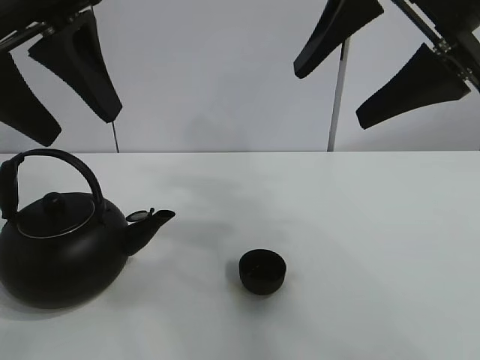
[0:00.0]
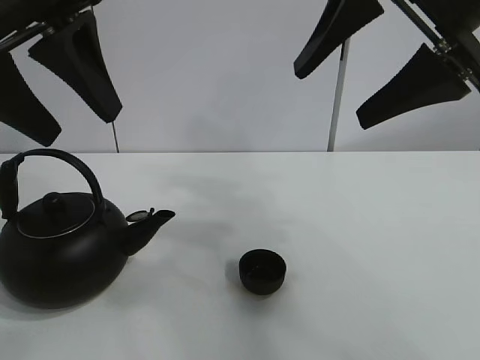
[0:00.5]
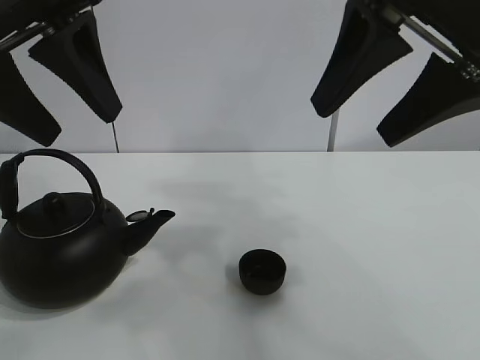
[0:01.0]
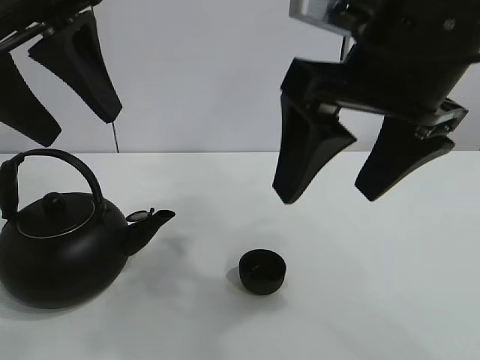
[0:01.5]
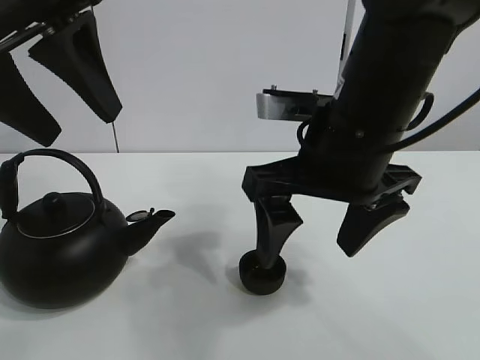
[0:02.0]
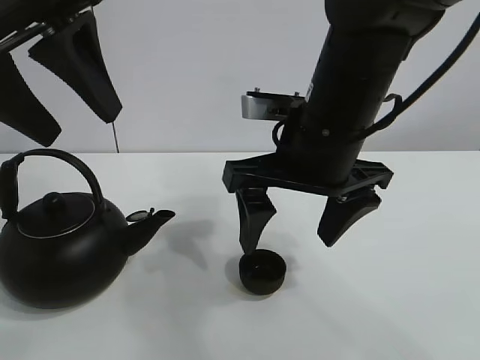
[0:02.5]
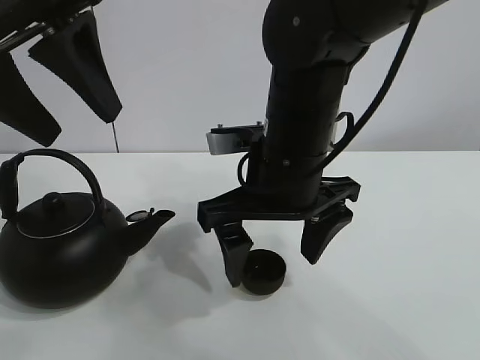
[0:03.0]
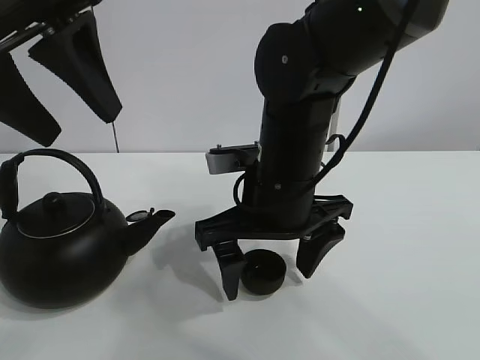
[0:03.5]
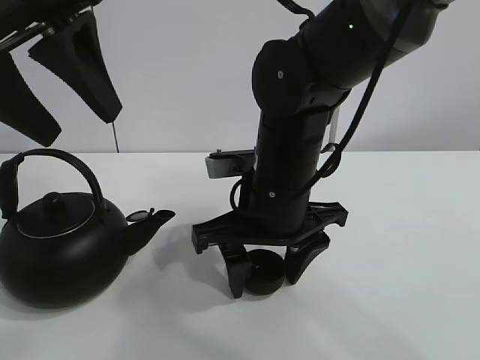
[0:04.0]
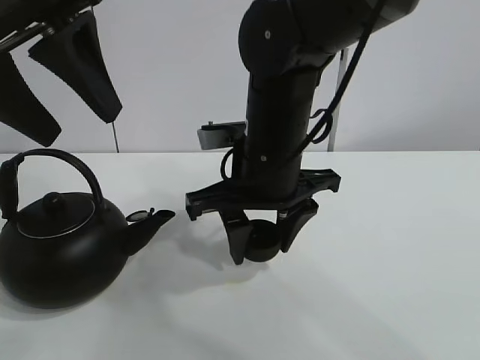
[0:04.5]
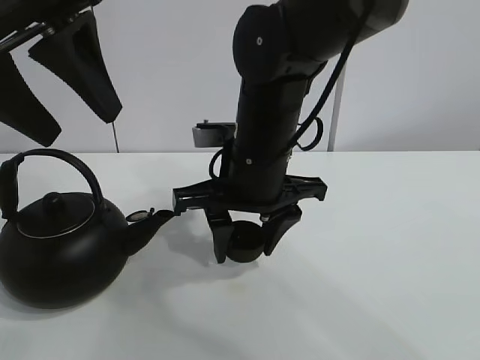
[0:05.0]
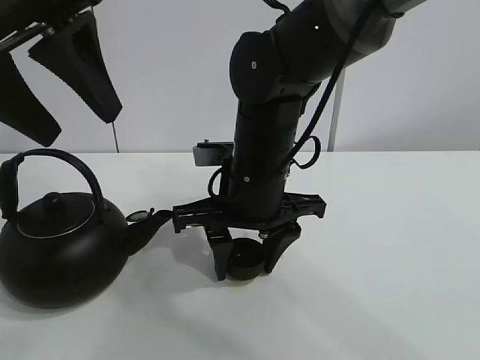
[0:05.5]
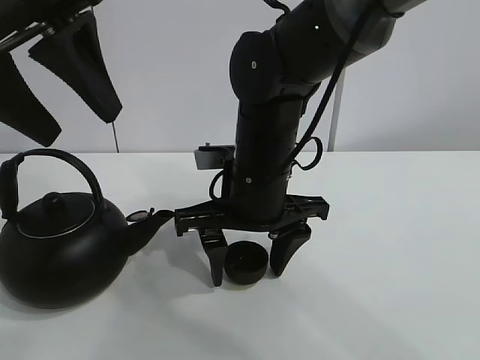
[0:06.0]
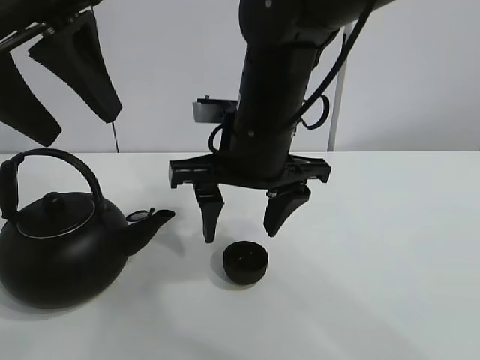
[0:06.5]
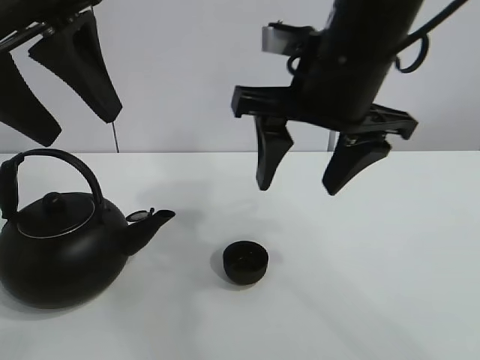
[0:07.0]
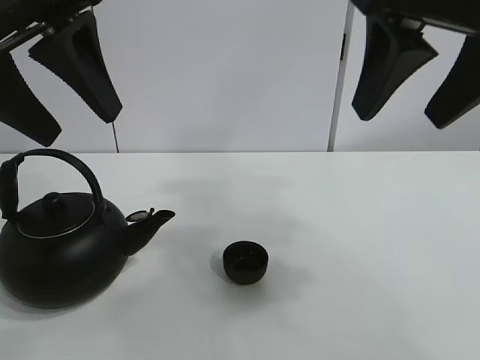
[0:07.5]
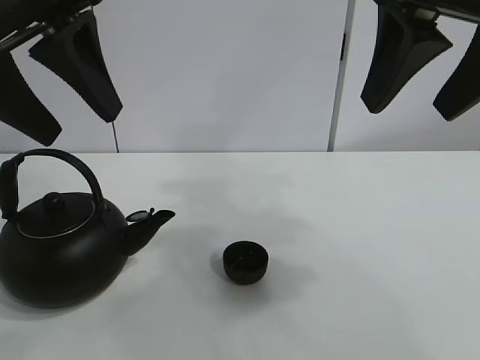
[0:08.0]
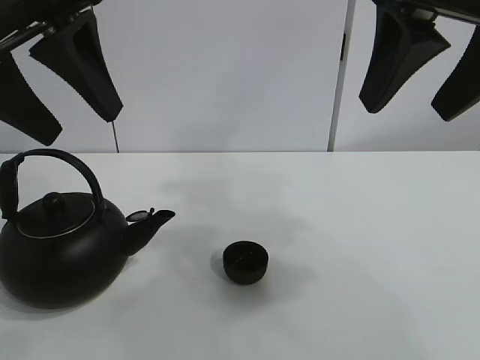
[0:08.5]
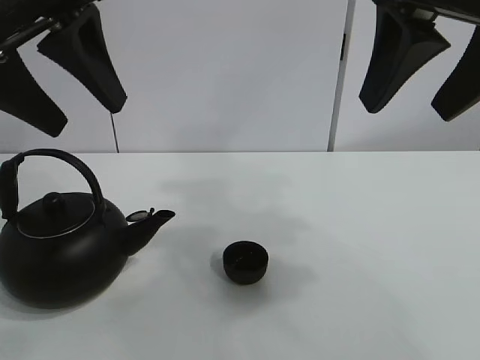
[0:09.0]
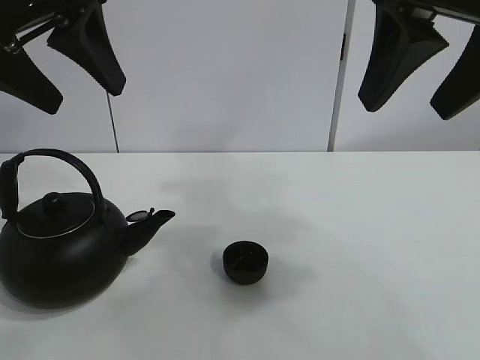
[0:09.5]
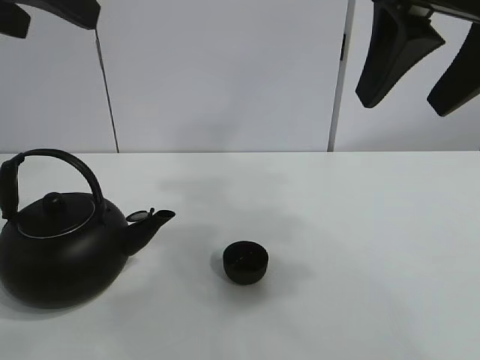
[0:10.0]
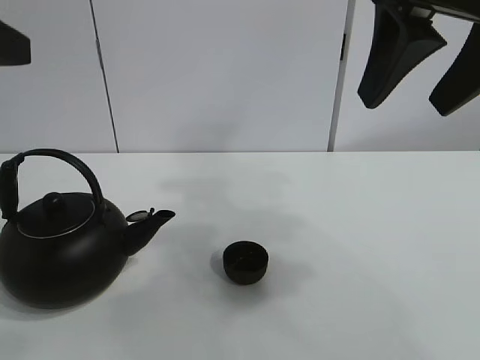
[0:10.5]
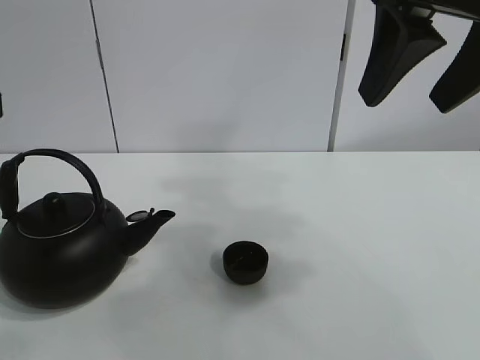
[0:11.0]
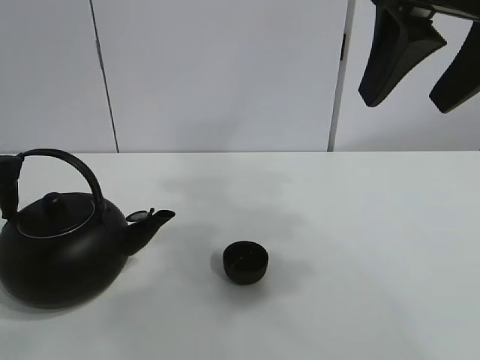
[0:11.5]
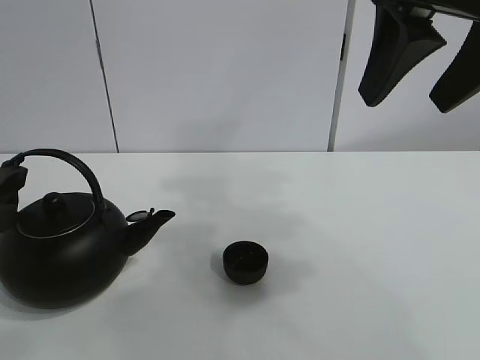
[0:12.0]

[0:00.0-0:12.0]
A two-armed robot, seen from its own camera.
Task of the whole recording: pour tea into the teacup.
Step, 0:00.0 to 0:04.0: Pick up the teacup with the right gripper.
Step, 0:04.5 to 0:06.0: Place the teacup in the center of view with the right gripper.
0:02.0 to 0:04.0: The right gripper goes approximately 10 cm downward and to the left, and closes.
0:04.0 to 0:06.0: The right gripper closes, then reopens.
0:06.0 to 0:08.0: The right gripper heads upward, to the right and backward, covering roughly 25 cm.
0:10.0 to 0:12.0: The left gripper goes some 20 cm downward.

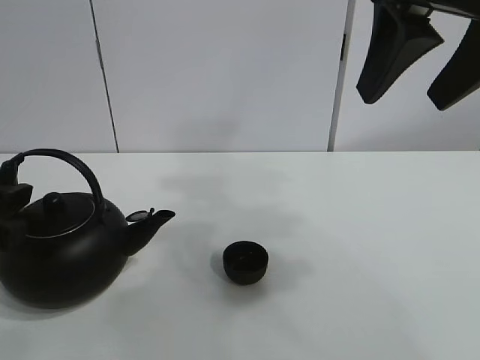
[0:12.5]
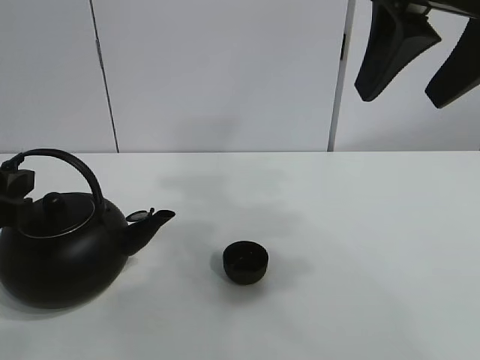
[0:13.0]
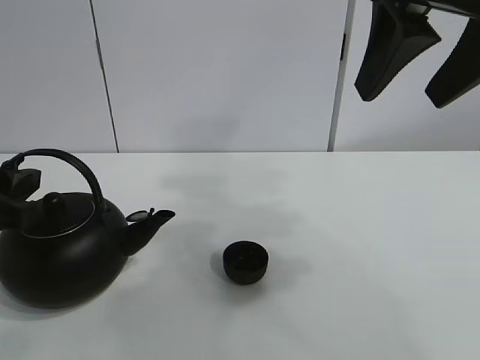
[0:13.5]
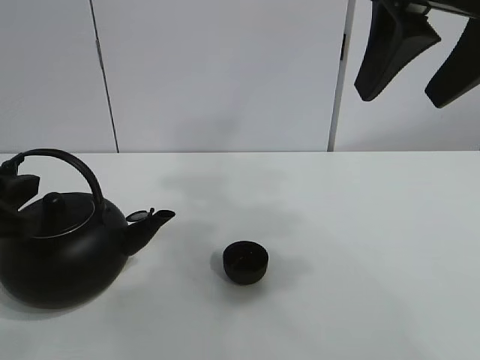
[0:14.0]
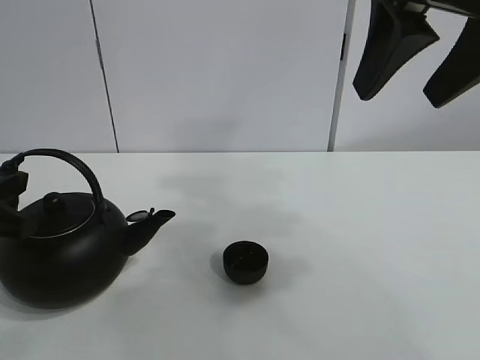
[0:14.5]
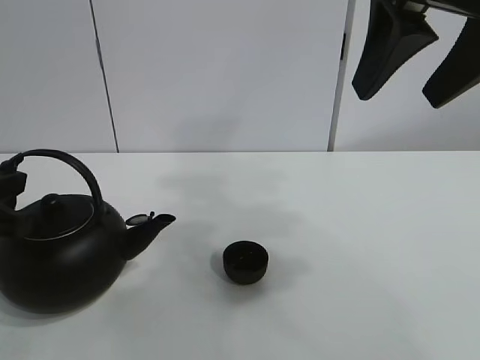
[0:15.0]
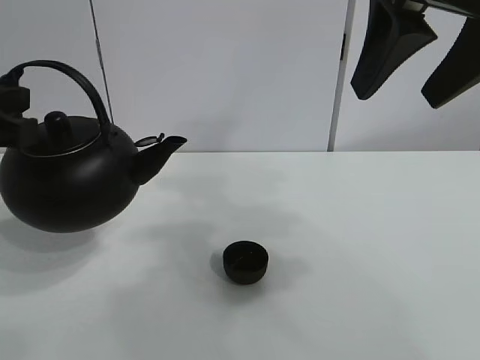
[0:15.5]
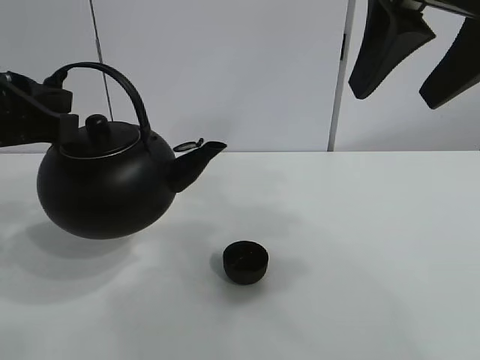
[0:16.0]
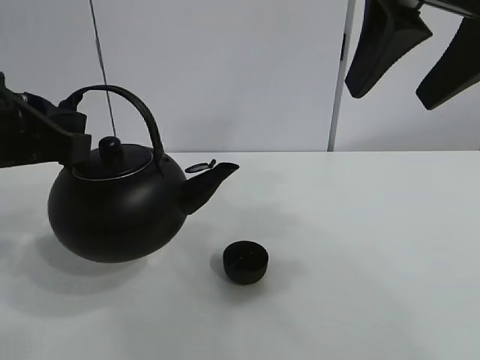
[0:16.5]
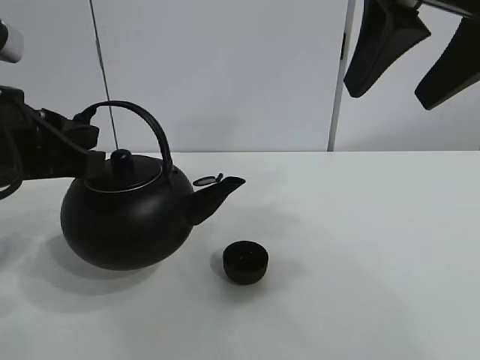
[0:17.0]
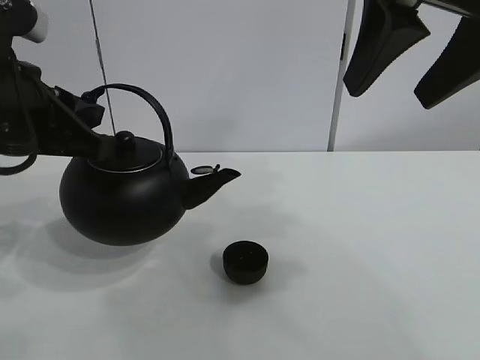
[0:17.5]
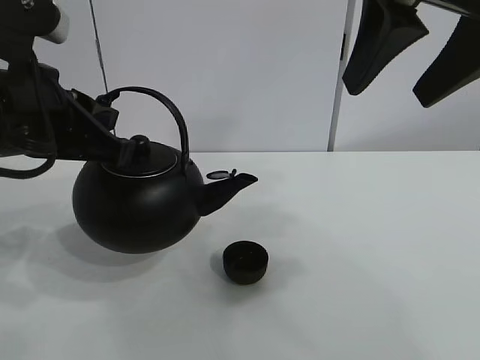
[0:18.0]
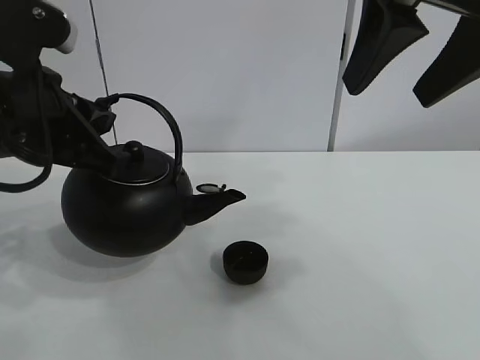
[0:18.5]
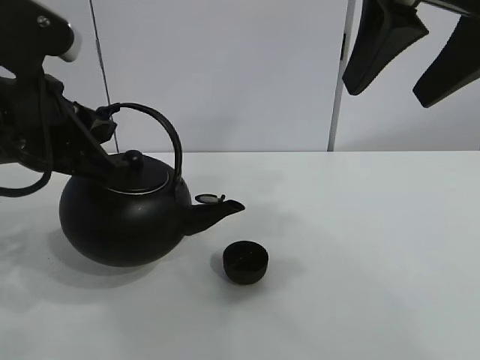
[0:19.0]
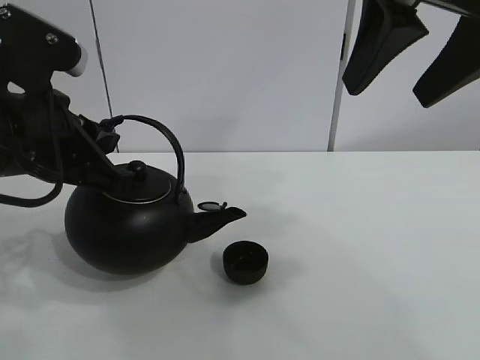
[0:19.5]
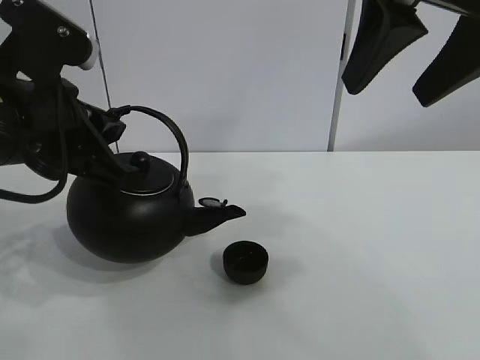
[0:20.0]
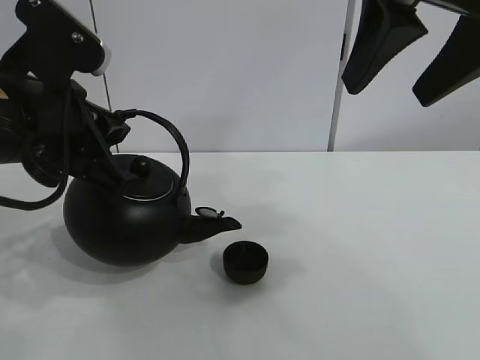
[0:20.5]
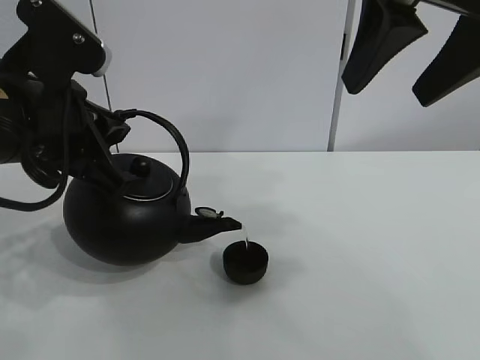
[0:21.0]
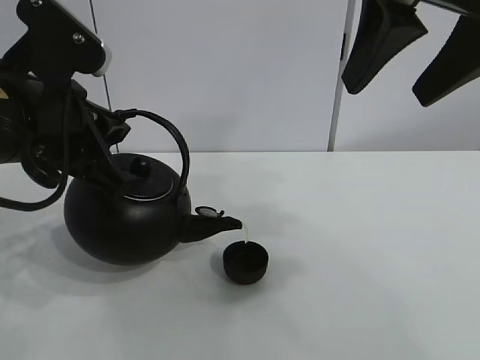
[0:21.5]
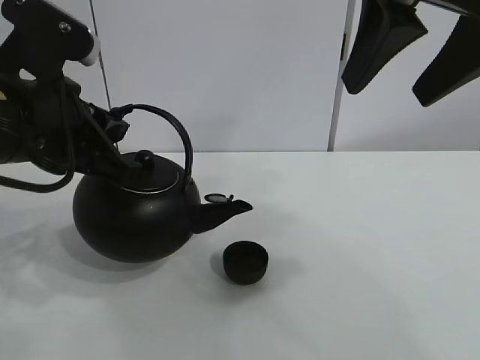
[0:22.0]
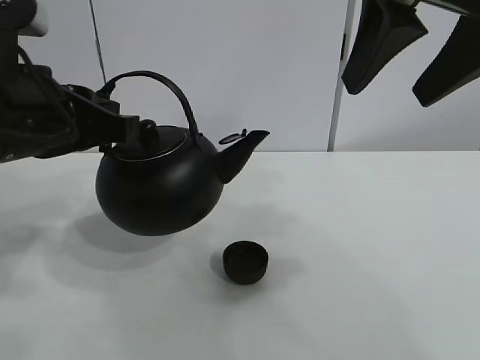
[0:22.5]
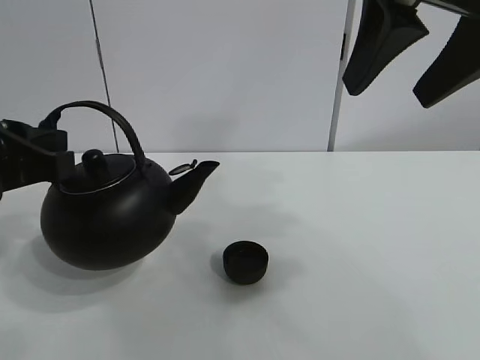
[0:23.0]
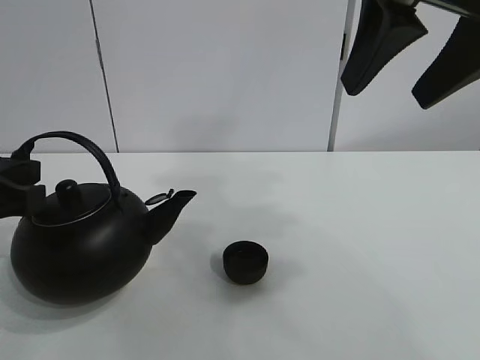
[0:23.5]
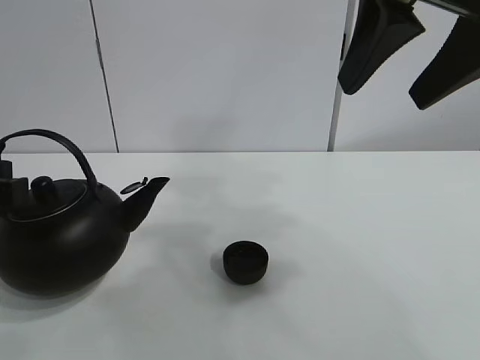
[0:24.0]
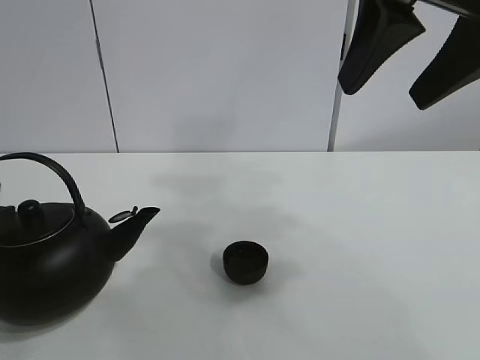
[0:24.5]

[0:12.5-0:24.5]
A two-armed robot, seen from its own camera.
Task of the whole recording: pour tea into the teacup.
Step, 0:12.5 to 0:14.5: Pick up the teapot with the left gripper.
Step, 0:15.0 to 0:21.5: Pour tea into the teacup with the left gripper.
0:14.5 to 0:16.5: The left gripper is displaced upward by roughly 5 cm.
0:16.5 to 0:18.5: There are only small adjustments of the grippers.
0:18.5 to 0:20.5: The grippers move only a little.
0:22.5 to 0:24.5: The left gripper goes roughly 10 cm to the left, backward and downward.

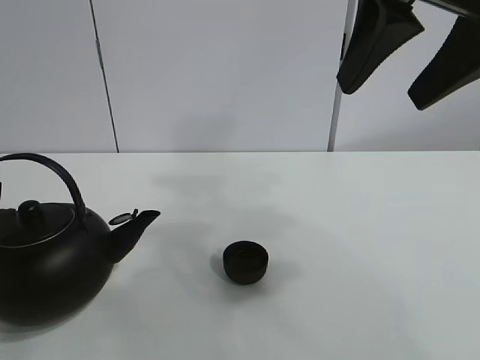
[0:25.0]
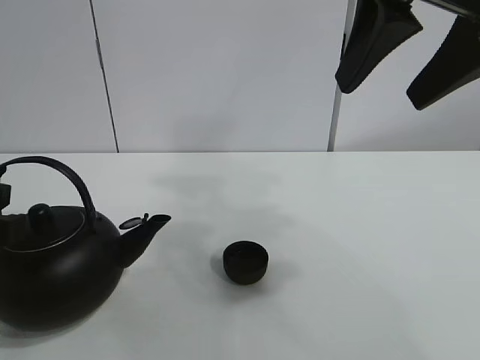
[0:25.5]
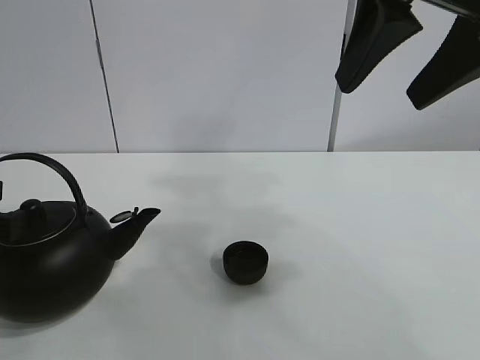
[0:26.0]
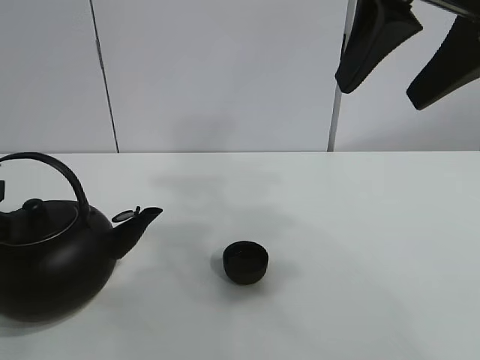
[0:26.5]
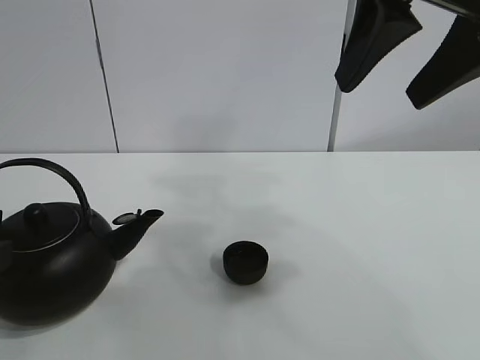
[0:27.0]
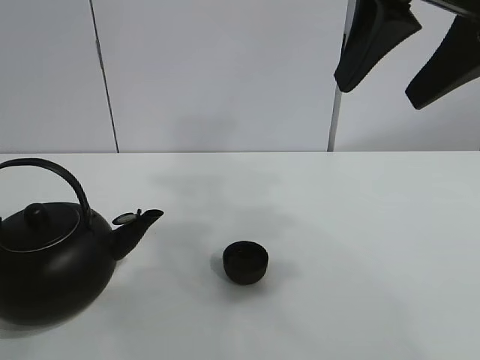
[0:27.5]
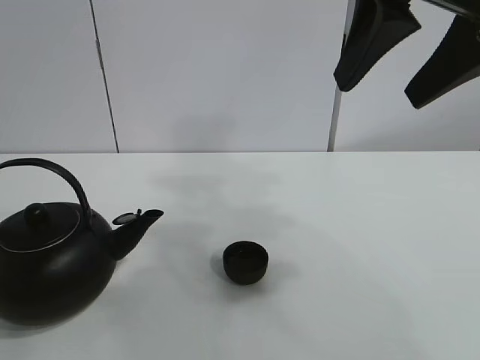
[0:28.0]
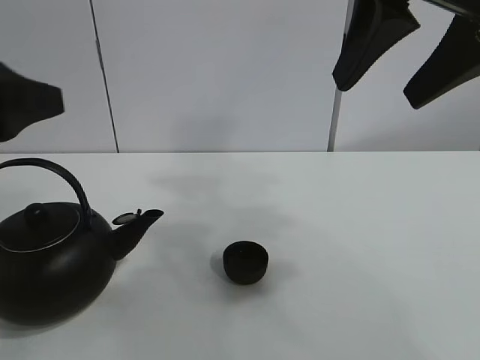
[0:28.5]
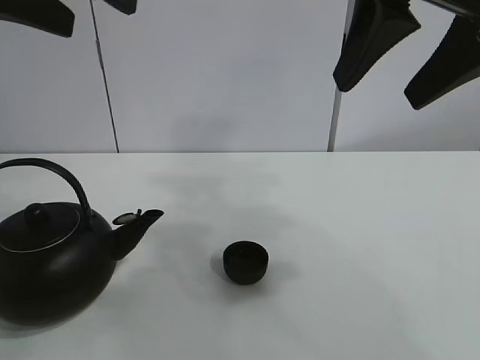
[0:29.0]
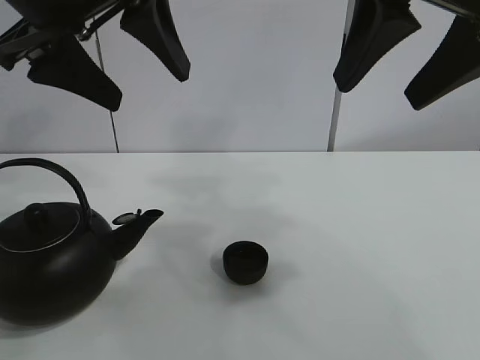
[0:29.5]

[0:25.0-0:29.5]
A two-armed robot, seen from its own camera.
Task of the whole recording: pour tea into the teacup.
0:25.0 to 0:27.0: The grippers make only small movements.
0:27.0 to 0:29.5: The left gripper is displaced upward, to the right and forward by about 25 cm, and opens up.
